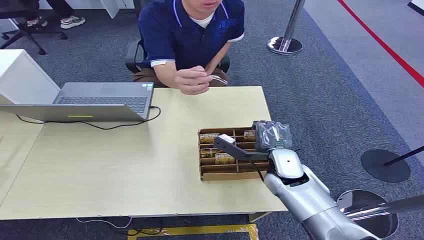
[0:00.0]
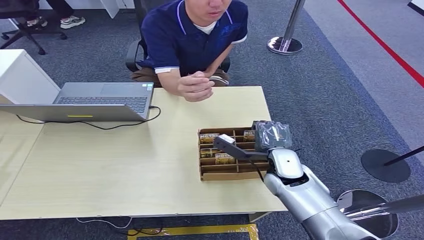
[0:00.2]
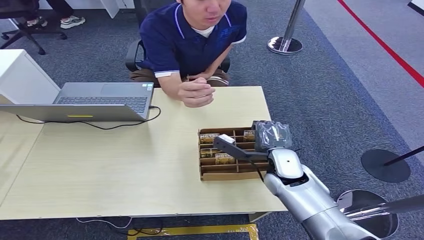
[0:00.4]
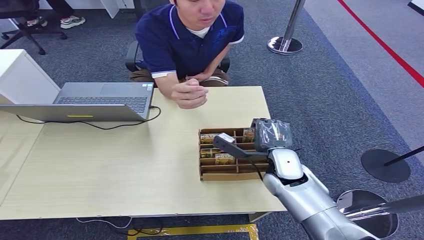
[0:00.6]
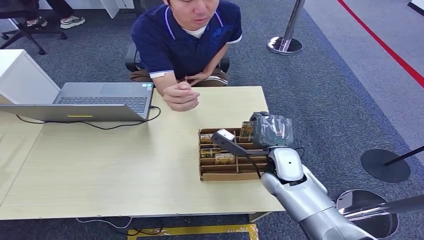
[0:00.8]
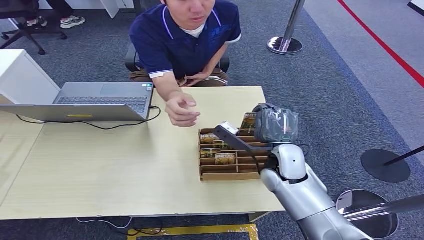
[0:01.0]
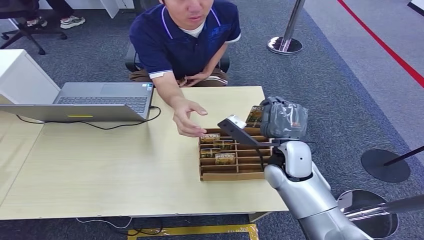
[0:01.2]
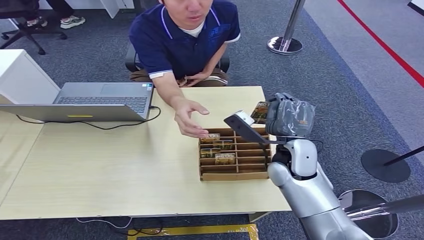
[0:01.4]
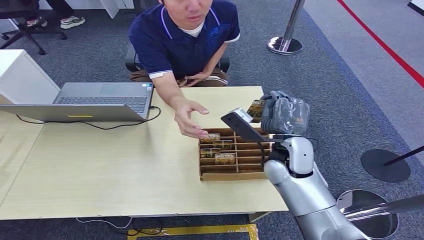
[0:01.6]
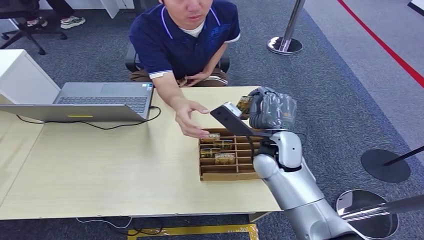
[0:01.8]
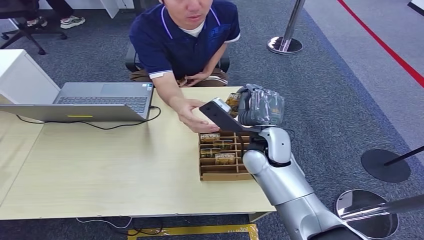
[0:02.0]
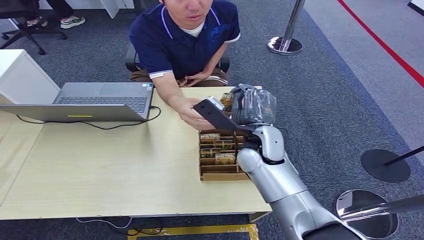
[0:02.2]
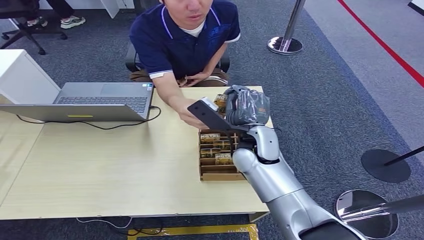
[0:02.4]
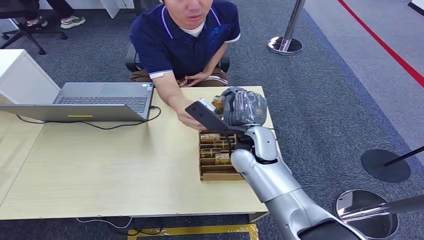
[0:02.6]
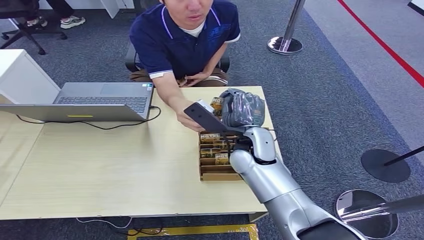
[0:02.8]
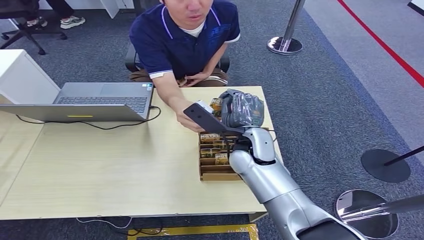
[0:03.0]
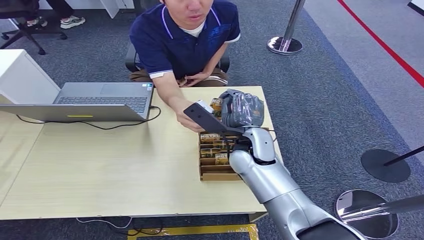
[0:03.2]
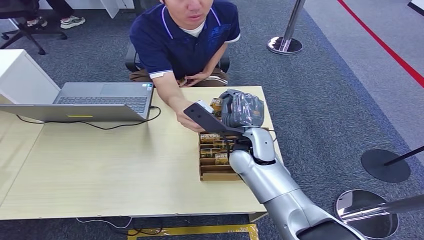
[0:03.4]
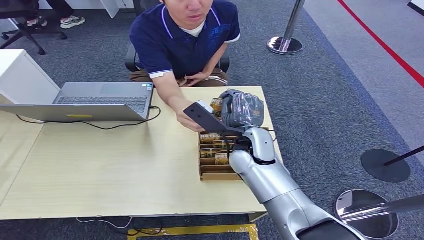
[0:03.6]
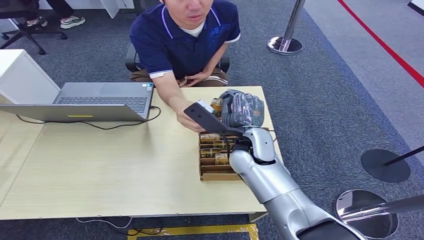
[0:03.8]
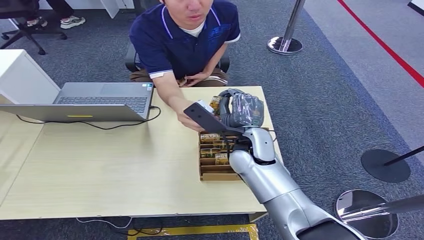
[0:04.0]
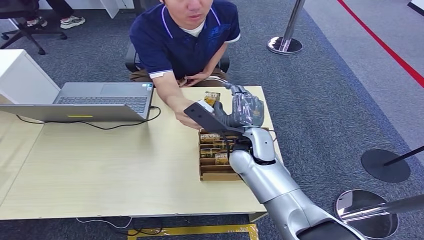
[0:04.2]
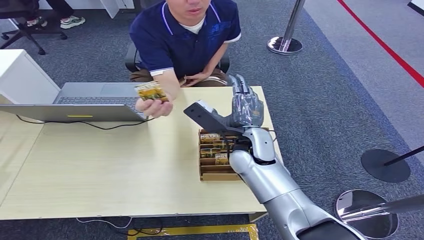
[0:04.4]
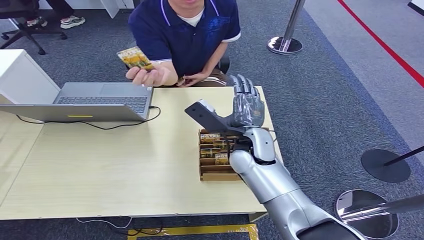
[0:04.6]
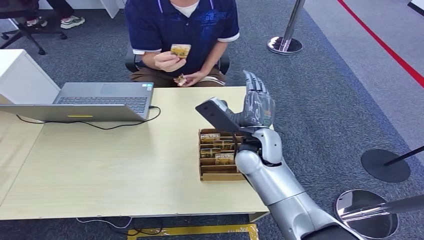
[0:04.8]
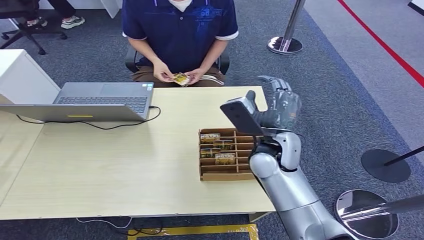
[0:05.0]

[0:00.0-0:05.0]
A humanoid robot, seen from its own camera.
Step, 0:00.0 to 0:00.8: Pick up the key card from the card box.
Step, 0:01.2 to 0:05.0: Hand the key card to the target.
0:01.6 to 0:03.4: The right hand moves to the left, some 5 cm.
0:03.4 to 0:05.0: There are only small adjustments of the hands.
